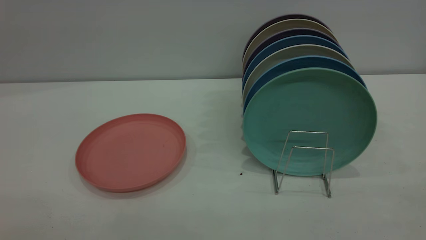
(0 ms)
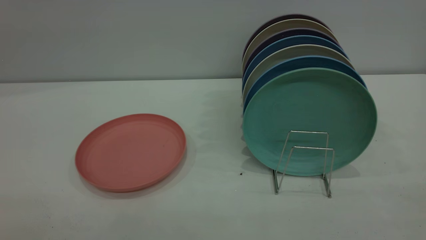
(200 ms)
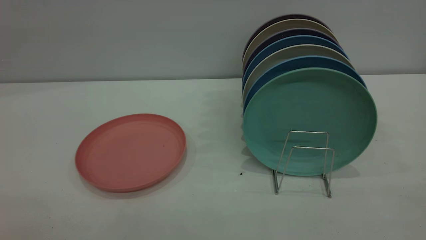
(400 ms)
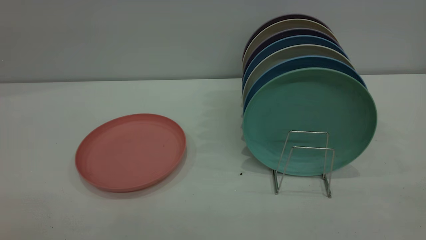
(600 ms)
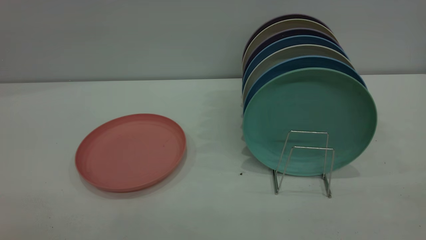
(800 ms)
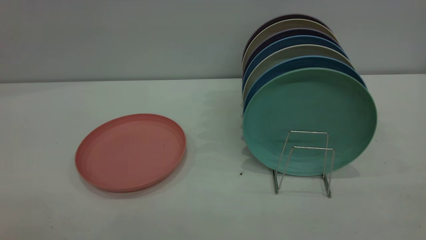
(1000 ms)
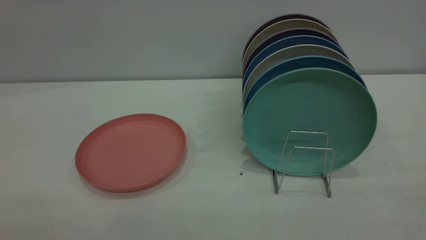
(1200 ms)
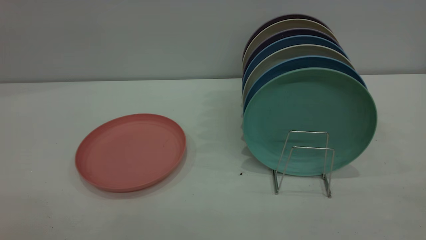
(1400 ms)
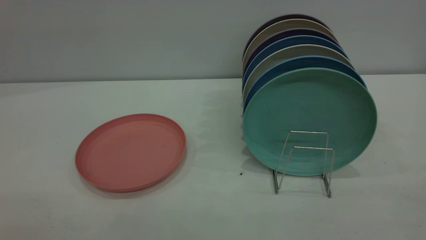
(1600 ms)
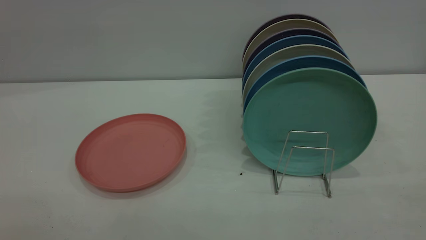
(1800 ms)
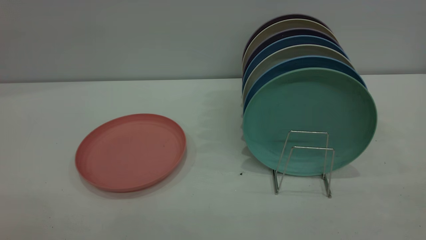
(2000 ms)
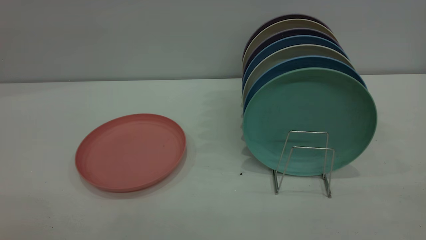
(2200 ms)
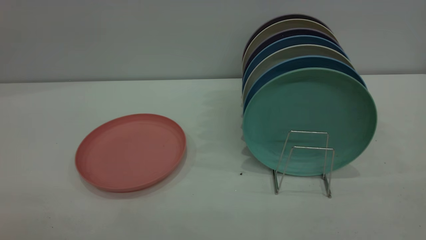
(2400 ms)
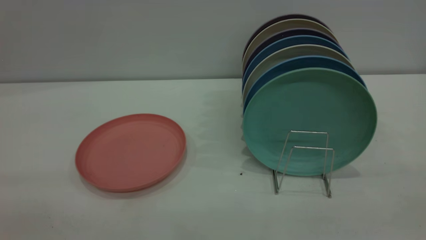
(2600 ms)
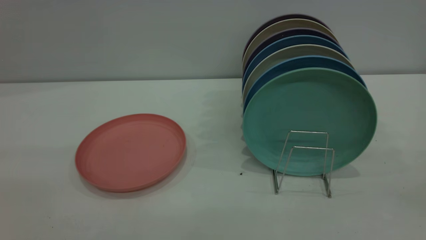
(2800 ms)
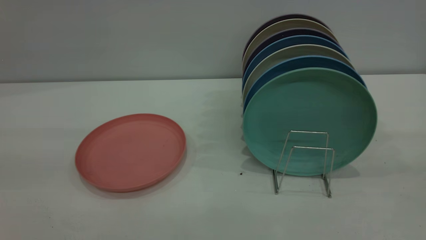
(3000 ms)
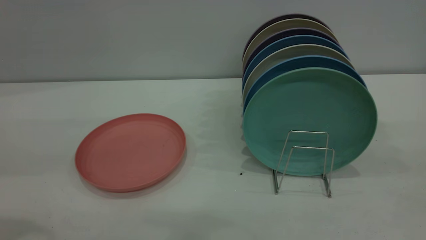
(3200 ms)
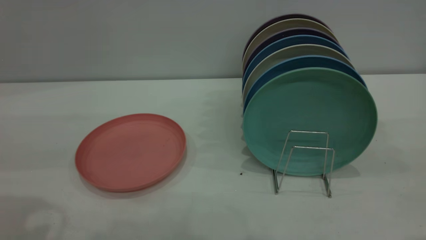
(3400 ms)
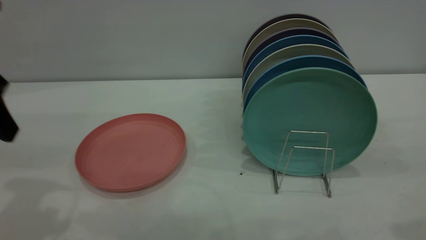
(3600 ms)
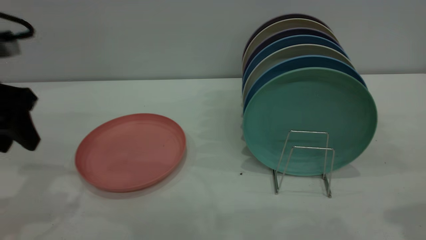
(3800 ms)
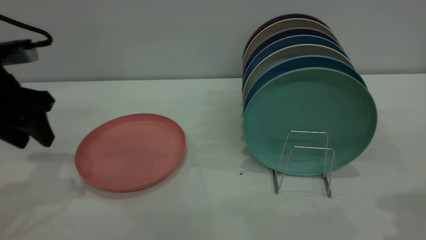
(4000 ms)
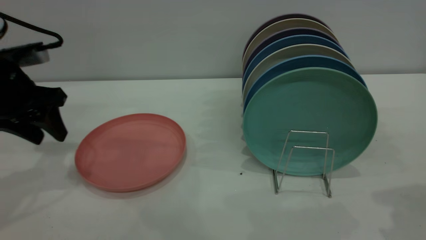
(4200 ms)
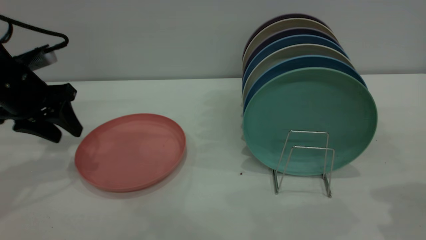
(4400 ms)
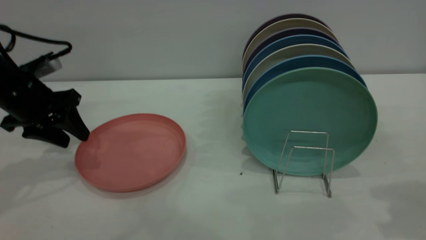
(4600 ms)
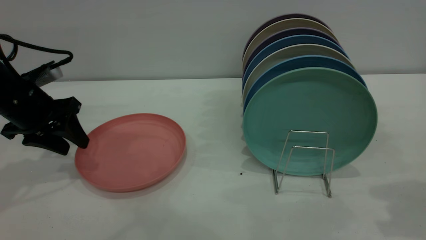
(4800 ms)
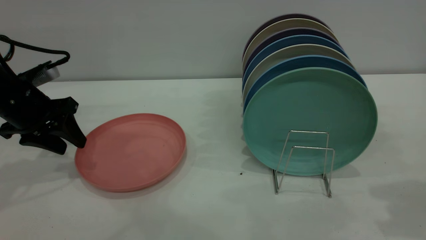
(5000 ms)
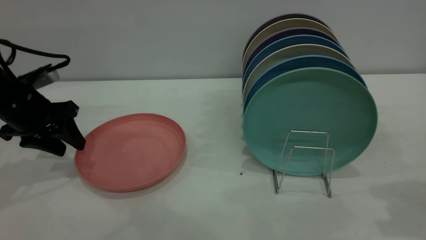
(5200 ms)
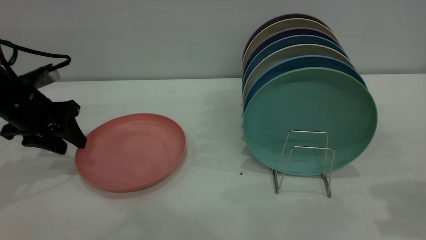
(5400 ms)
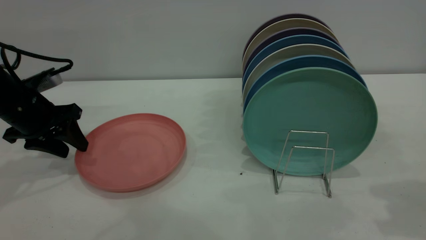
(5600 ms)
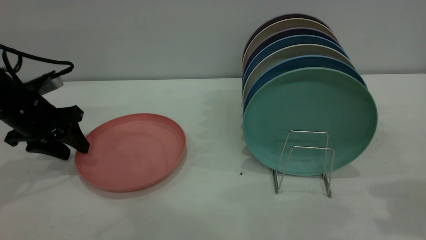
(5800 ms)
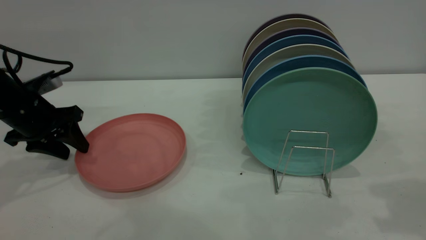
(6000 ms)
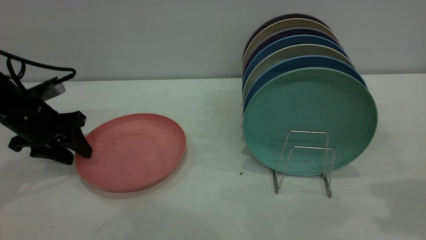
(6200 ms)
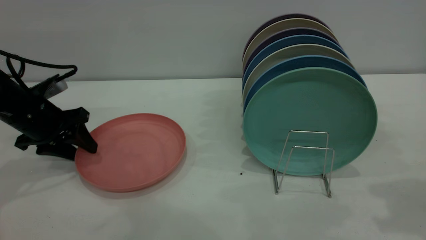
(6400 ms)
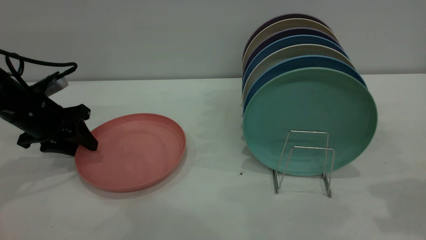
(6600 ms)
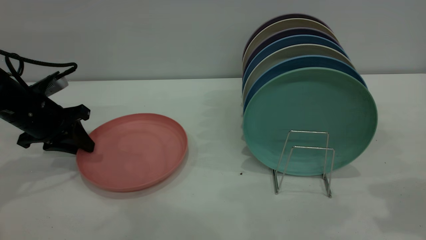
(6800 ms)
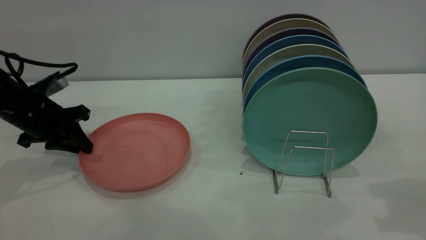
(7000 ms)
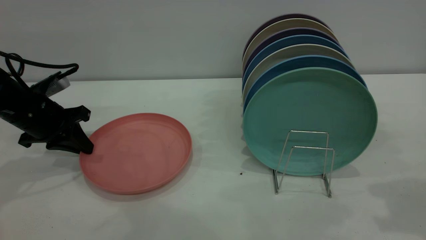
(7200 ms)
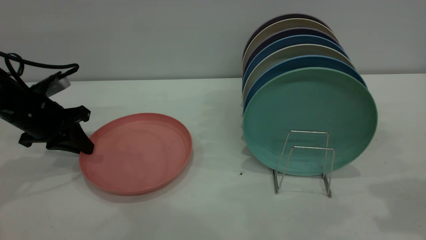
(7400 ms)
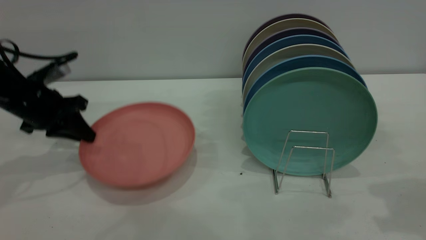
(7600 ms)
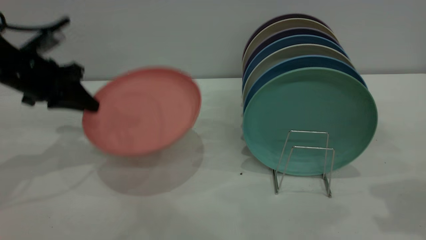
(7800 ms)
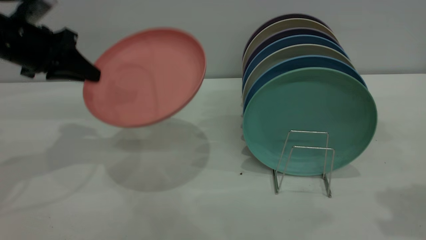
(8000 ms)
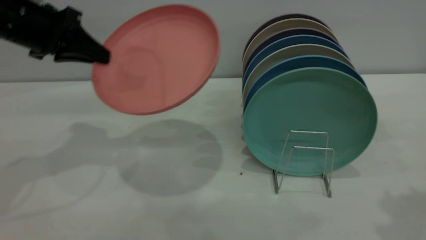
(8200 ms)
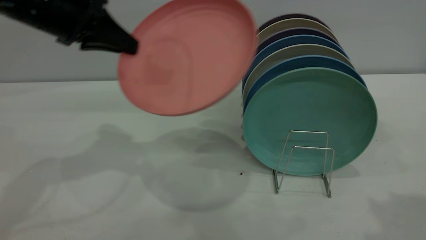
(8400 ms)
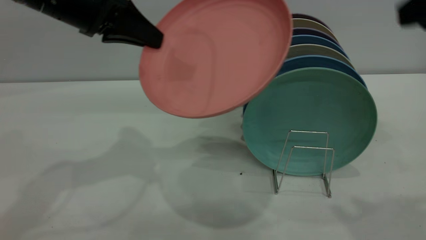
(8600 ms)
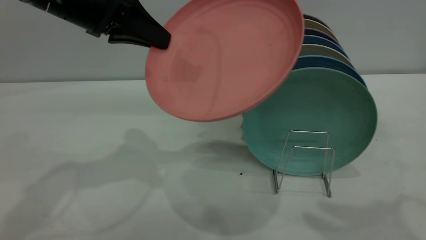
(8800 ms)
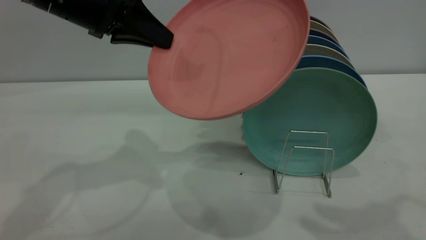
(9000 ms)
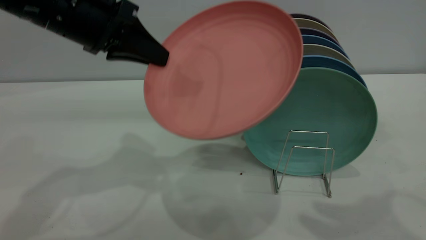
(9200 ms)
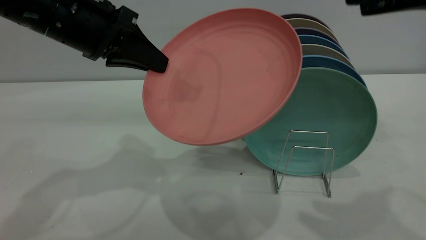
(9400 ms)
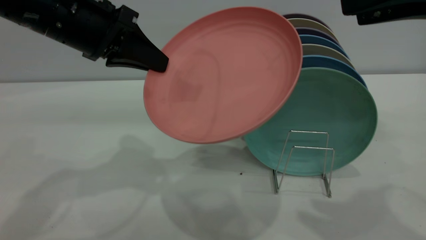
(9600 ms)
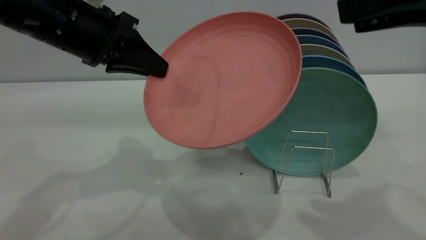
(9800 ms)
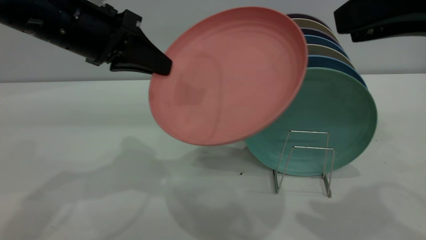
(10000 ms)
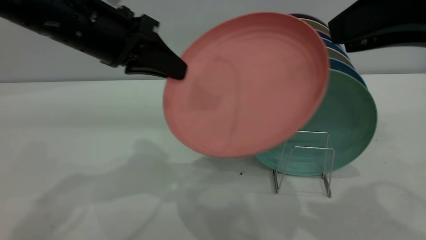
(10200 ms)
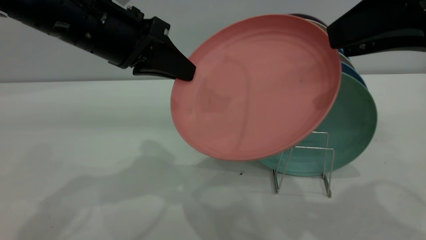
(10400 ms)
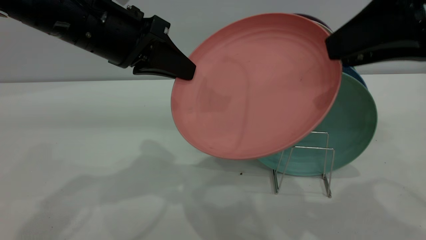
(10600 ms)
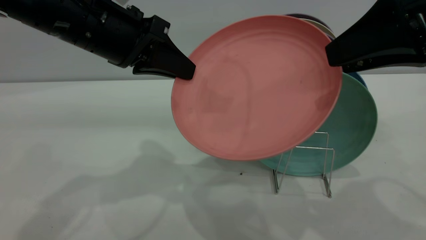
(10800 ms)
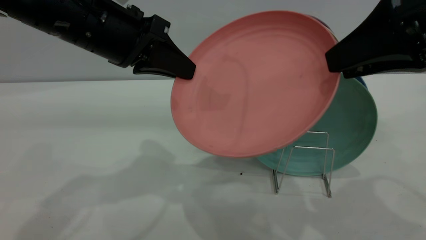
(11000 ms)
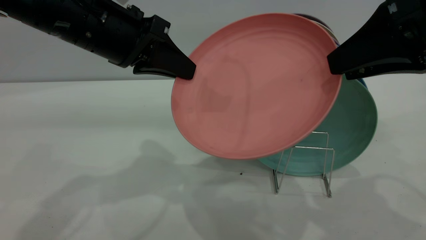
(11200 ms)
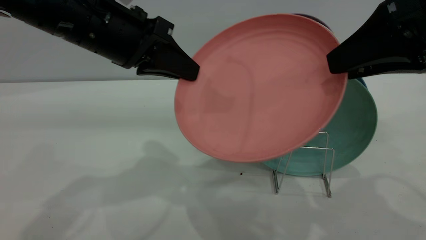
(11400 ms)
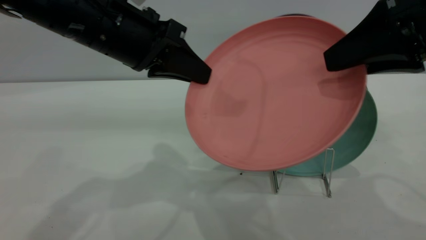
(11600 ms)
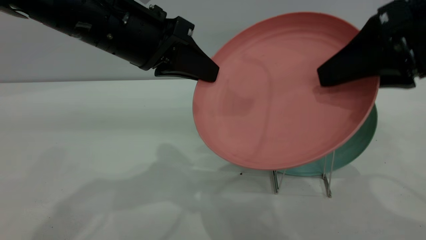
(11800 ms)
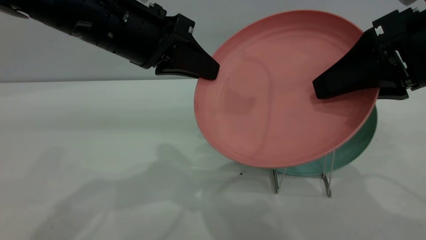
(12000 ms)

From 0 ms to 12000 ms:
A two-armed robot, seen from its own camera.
Task of the whole recording: put the plate on the plate rack.
Step, from 0 ms to 7600 ms: Pick up the plate with the left gripper.
From 0 ms to 1600 ms: The two grippers keep their place.
From 3000 ms to 4400 ms: The left gripper is displaced forward and downward by some 30 cm.
From 4400 ms to 6000 ms: The left gripper shifts about 5 cm downward.
From 6000 ms to 7600 ms: The left gripper closes up.
From 7600 ms to 9000 ms: The right gripper heads upward and to the left, covering some 10 cm; the left gripper goes about 20 cm upward and to the right.
From 9000 ms to 10400 ms: The right gripper goes some 5 cm downward.
From 10400 ms to 12000 ms: The right gripper ends up some 5 cm from where it was.

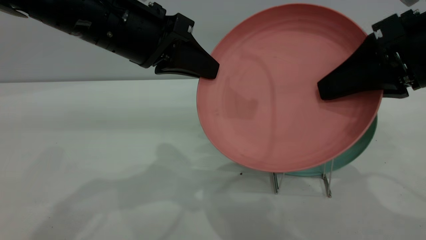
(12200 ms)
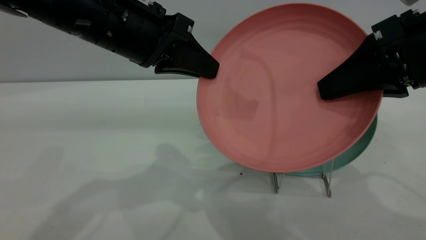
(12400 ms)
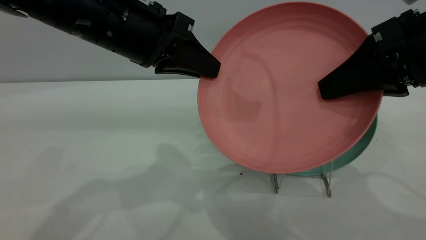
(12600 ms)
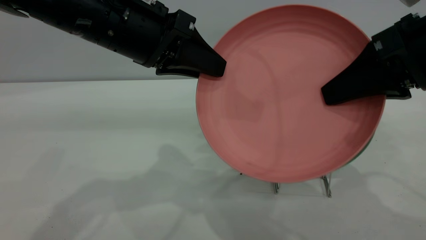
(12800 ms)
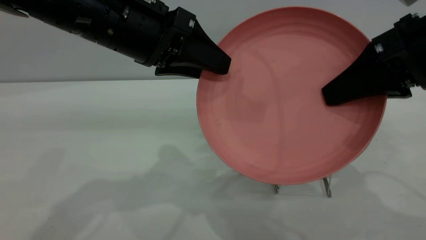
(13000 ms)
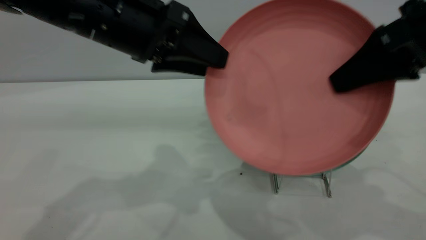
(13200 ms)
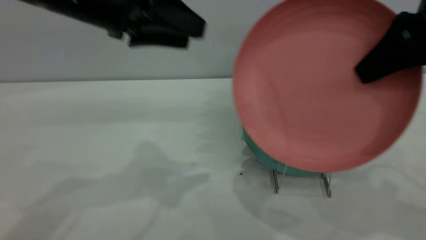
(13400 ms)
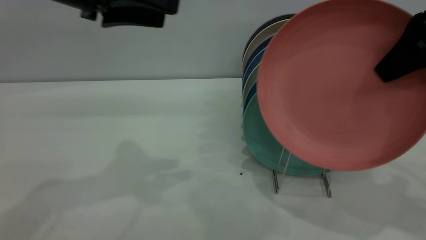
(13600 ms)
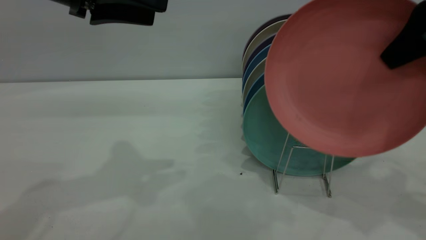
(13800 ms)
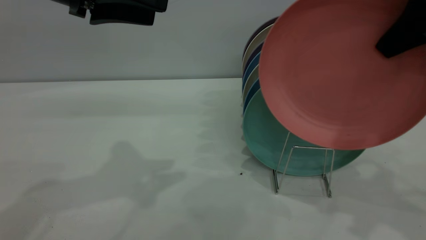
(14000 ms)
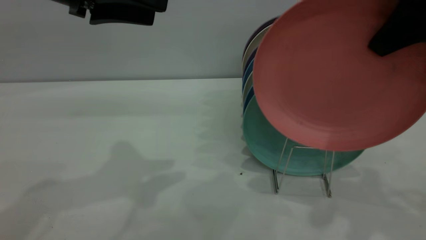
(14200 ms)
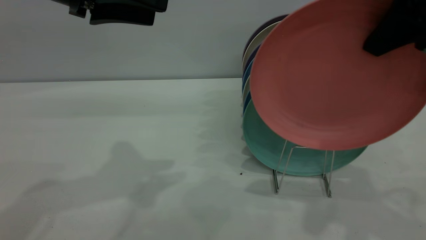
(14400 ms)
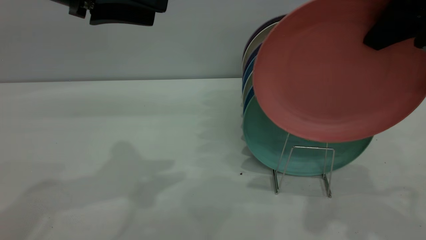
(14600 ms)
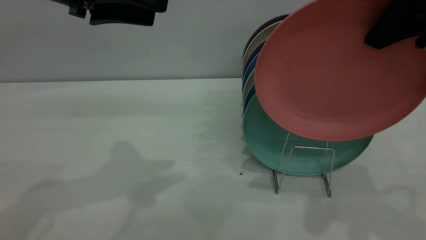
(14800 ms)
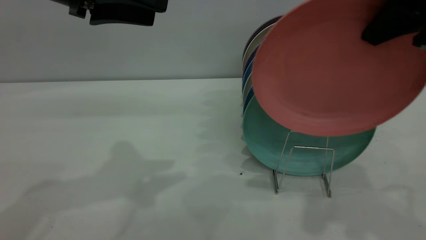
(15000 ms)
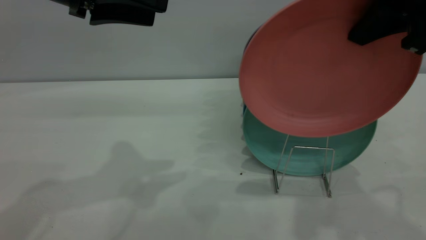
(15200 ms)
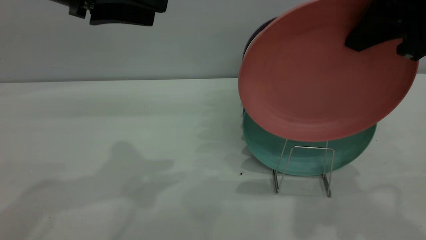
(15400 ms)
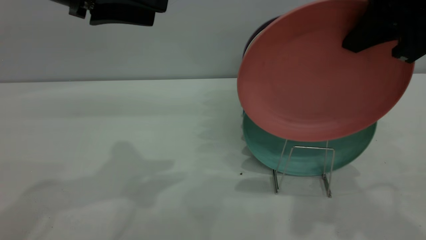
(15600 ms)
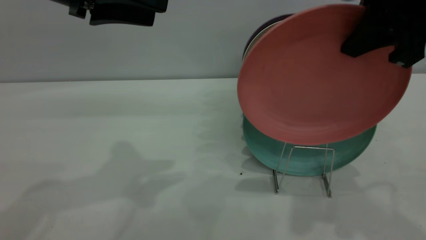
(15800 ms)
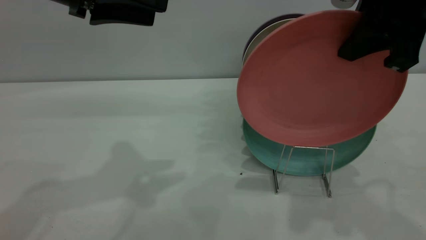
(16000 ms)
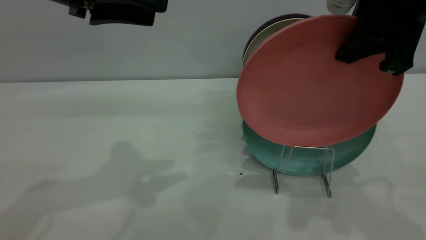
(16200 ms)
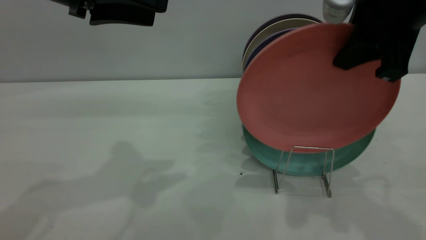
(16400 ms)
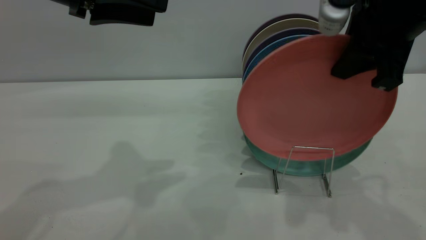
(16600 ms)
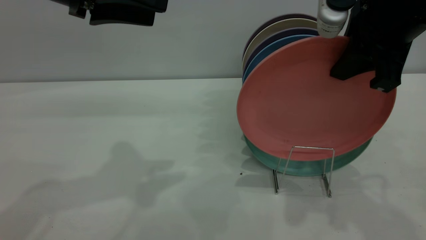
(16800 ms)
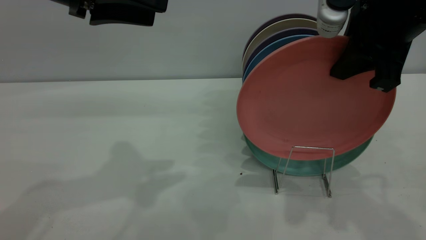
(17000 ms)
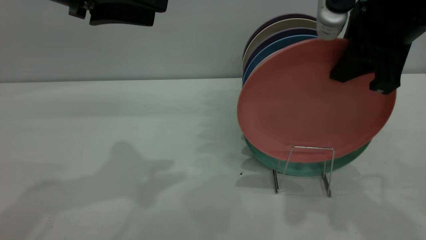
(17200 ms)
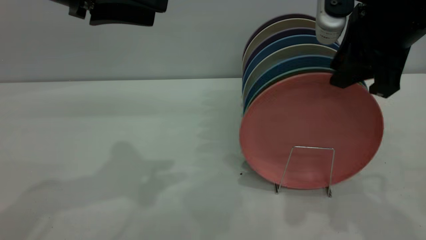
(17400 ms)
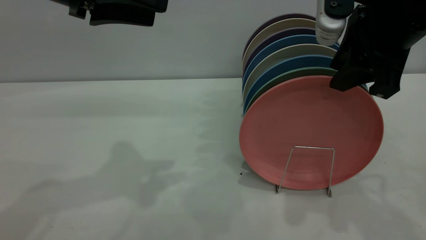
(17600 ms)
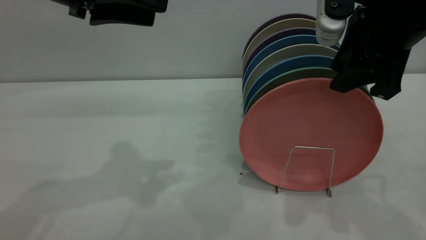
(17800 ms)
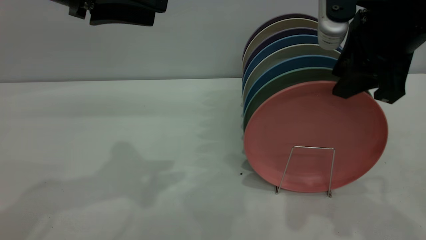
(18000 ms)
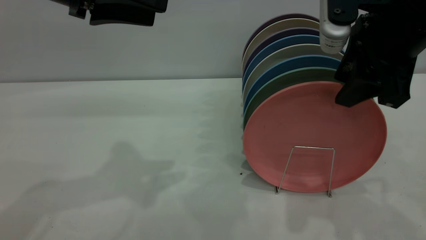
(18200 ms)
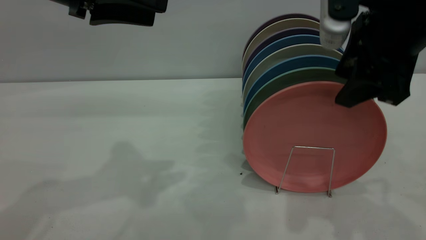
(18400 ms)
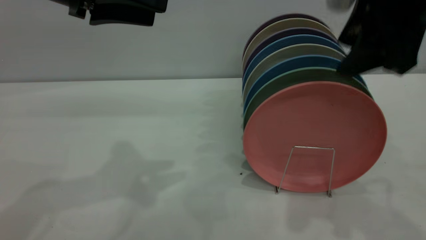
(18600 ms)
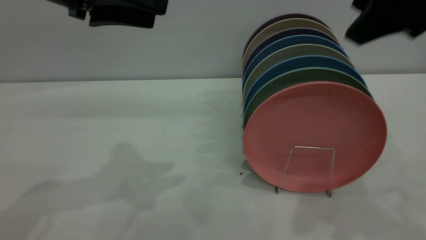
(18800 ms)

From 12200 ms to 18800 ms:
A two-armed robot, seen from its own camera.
Task of the whole recording: put the plate on the plate rack.
Step, from 13600 ms to 18600 ms: Place the plate on the shelf.
From 12200 ms to 13800 ms: The right gripper is displaced upward by some 5 cm. Meanwhile the left gripper goes roughly 10 cm to the left and upward, and opens its fingers.
From 13800 ms to 15400 ms: The right gripper moves to the left, approximately 5 cm.
From 15400 ms to 17200 ms: The right gripper moves some 5 cm.
From 17200 ms to 18800 ms: The right gripper goes about 5 cm upward, and opens its fingers.
